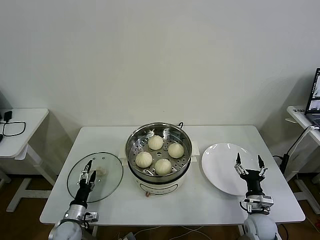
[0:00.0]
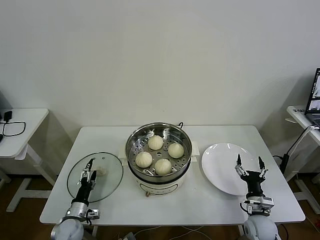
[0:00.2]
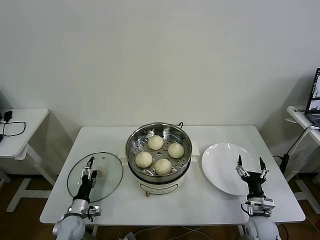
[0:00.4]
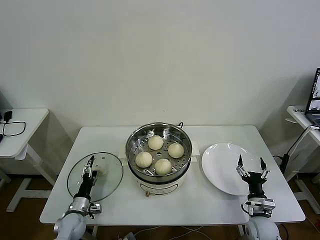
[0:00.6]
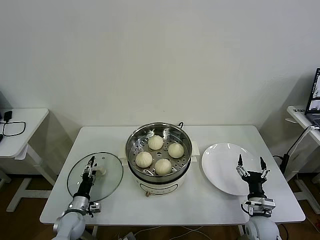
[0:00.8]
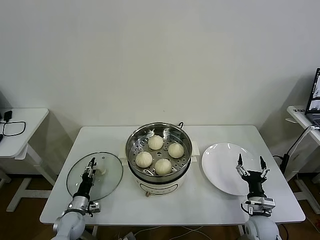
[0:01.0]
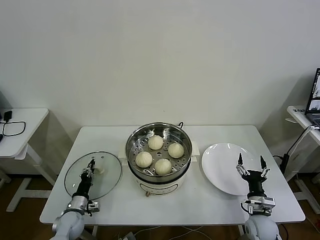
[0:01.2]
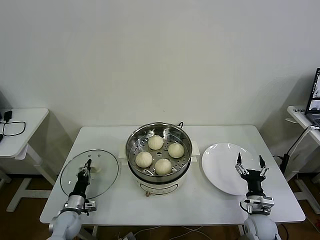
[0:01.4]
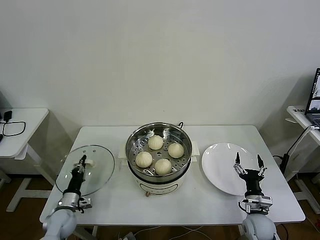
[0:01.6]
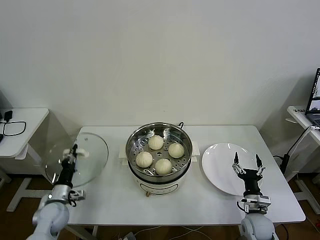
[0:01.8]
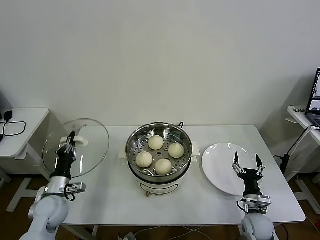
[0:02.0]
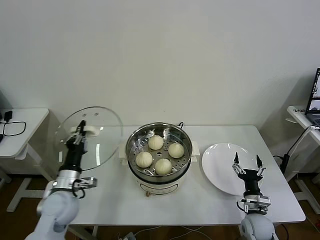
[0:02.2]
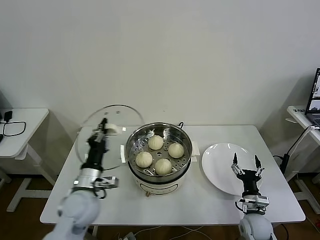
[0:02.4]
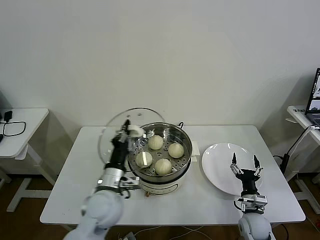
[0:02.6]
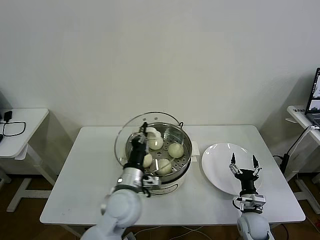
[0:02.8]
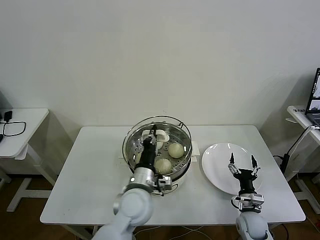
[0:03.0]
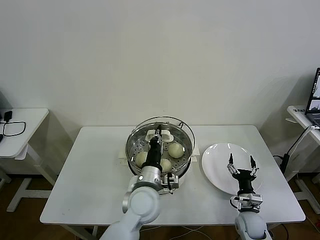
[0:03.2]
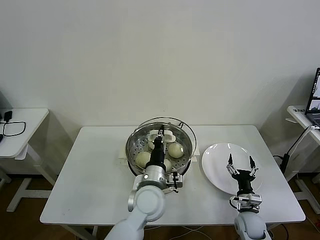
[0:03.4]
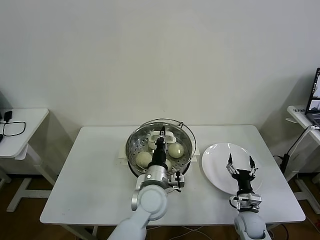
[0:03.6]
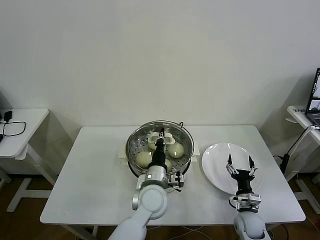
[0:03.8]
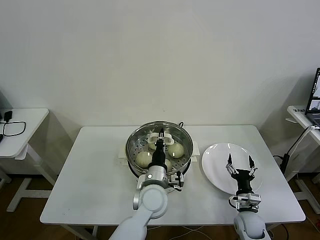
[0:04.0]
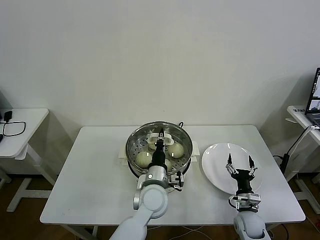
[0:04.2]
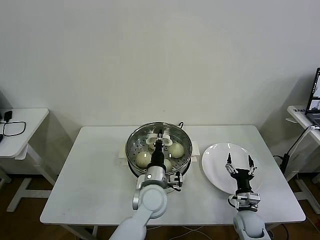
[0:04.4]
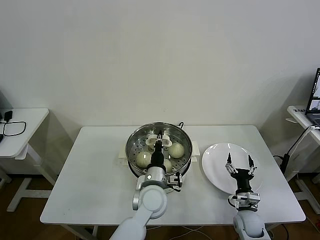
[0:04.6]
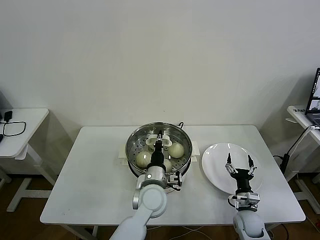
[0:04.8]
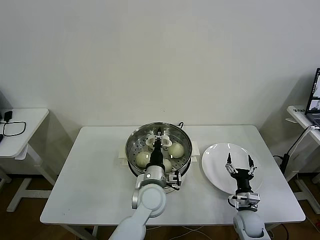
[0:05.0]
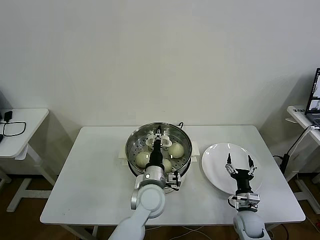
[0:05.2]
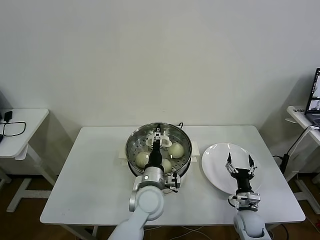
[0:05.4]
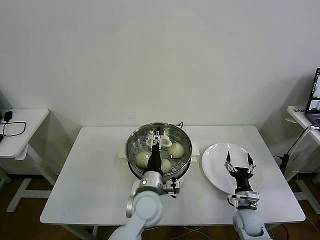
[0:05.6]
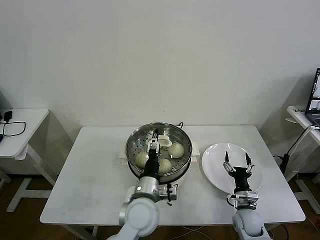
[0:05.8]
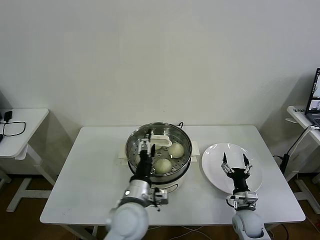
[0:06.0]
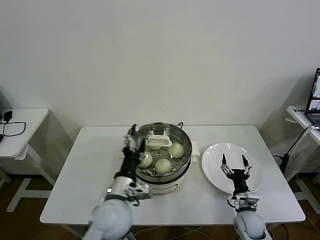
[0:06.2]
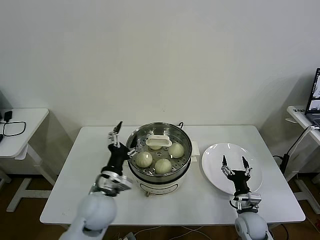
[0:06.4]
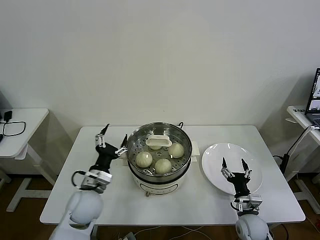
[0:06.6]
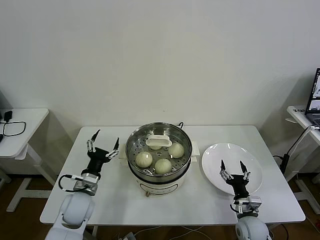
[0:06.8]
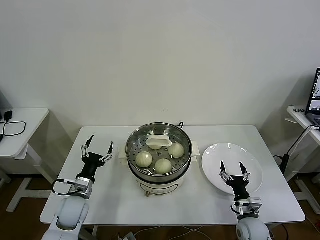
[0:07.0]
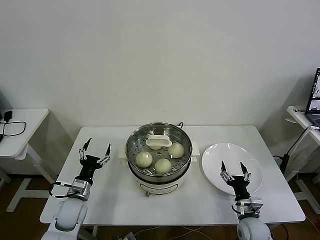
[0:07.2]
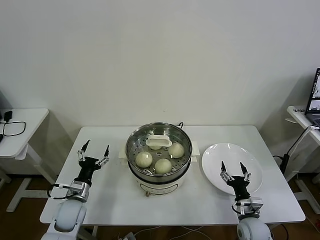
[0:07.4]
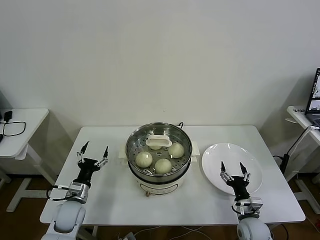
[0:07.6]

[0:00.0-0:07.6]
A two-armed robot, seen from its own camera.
Task of the whole recording: take steamed baozi put them in steamer then cover it.
Step, 1.6 to 5.8 s: Place the pot lid on the steamer with left gripper.
0.0 to 1.6 s: The left gripper closes.
1.6 to 3.0 s: The left gripper goes about 35 cm to the right and upward.
3.0 to 4.6 s: The left gripper travels to the right by some 5 cm.
4.6 to 6.0 s: The left gripper is displaced backward by about 5 cm, and opens its fingers.
6.0 to 7.6 s: The left gripper shifts approximately 25 cm to the left and downward.

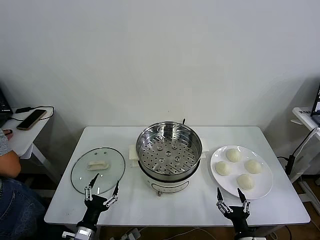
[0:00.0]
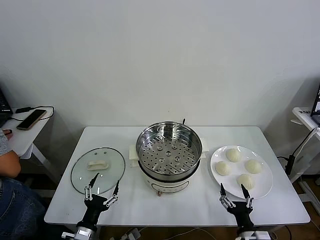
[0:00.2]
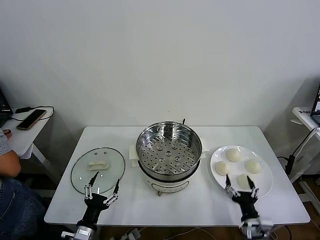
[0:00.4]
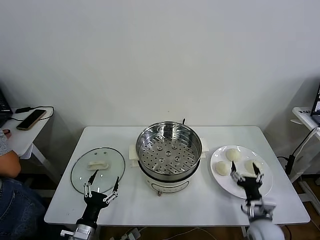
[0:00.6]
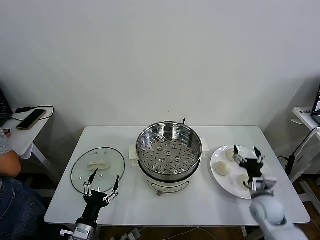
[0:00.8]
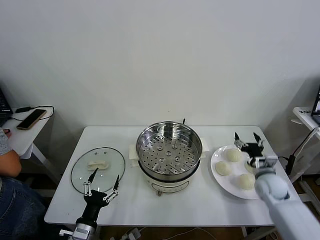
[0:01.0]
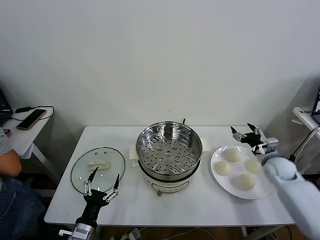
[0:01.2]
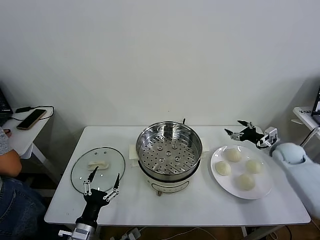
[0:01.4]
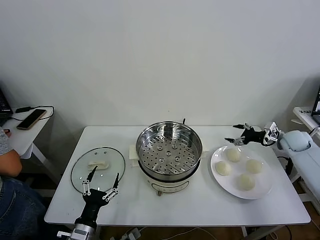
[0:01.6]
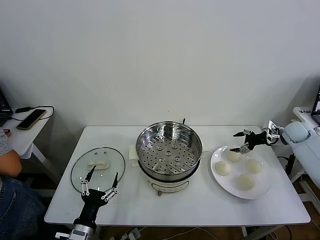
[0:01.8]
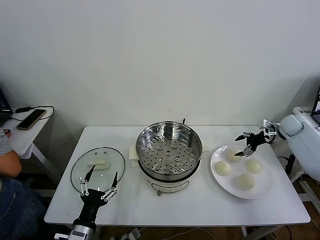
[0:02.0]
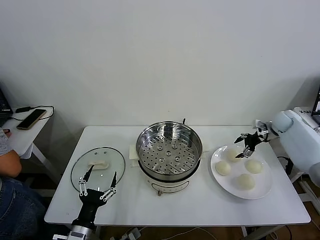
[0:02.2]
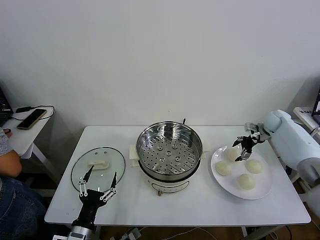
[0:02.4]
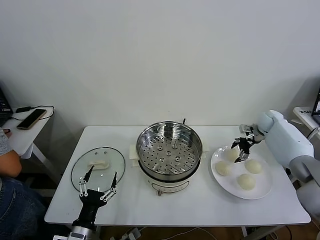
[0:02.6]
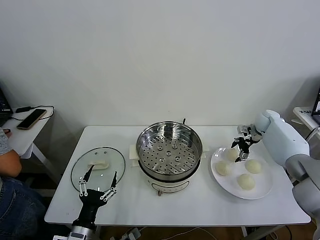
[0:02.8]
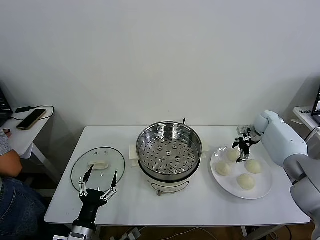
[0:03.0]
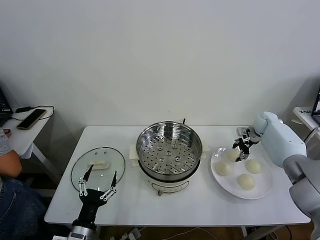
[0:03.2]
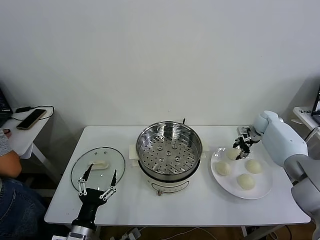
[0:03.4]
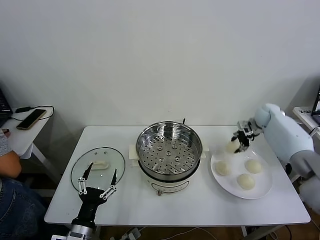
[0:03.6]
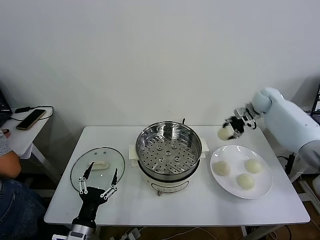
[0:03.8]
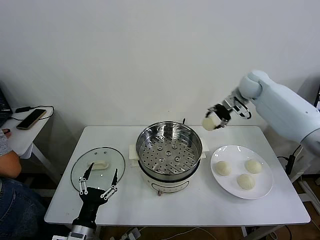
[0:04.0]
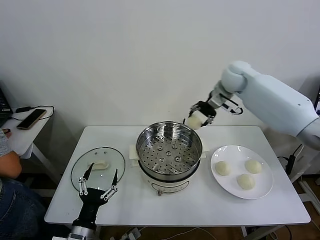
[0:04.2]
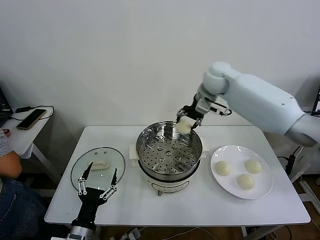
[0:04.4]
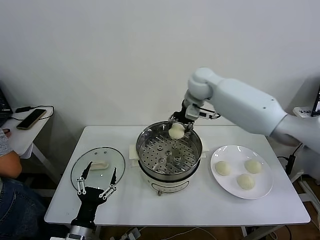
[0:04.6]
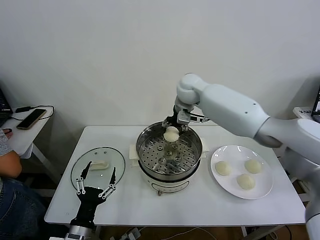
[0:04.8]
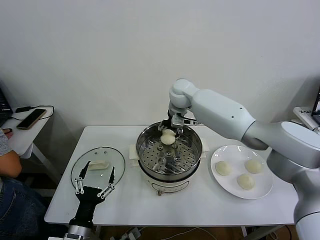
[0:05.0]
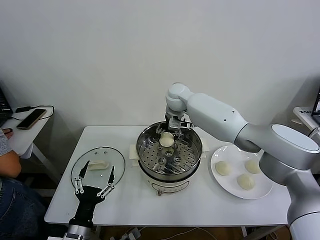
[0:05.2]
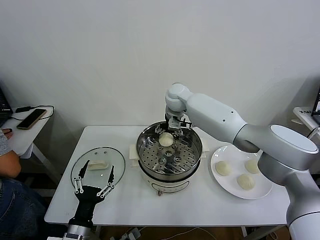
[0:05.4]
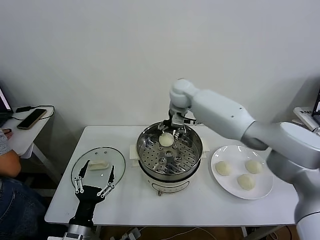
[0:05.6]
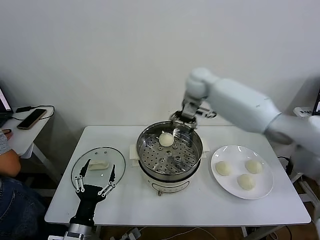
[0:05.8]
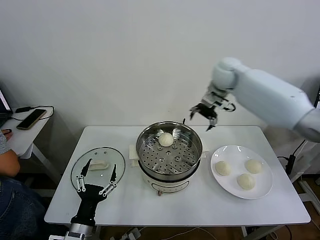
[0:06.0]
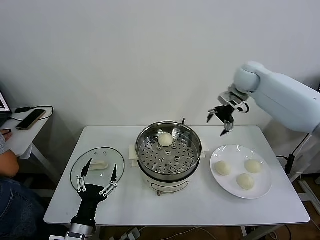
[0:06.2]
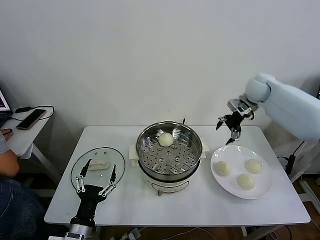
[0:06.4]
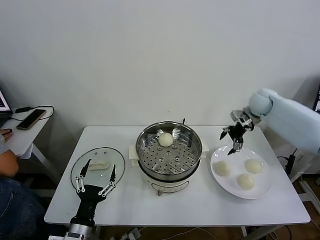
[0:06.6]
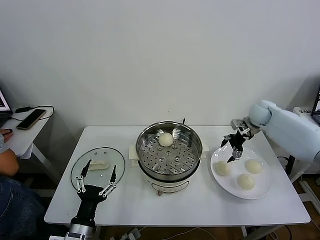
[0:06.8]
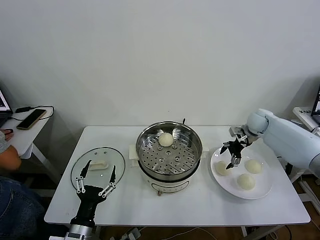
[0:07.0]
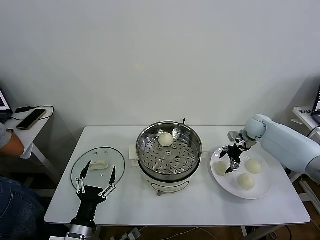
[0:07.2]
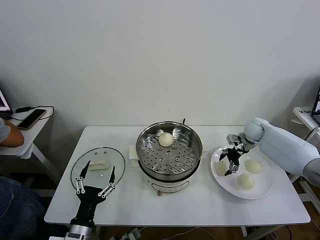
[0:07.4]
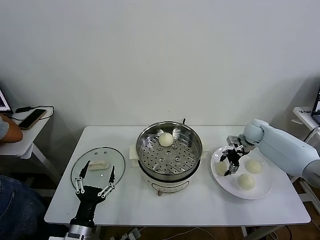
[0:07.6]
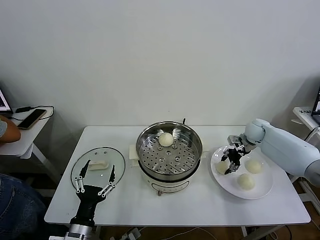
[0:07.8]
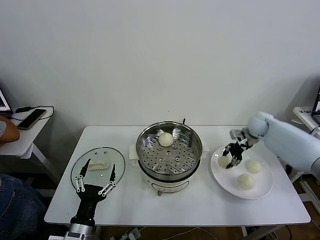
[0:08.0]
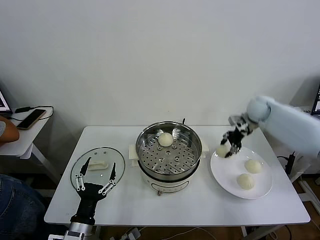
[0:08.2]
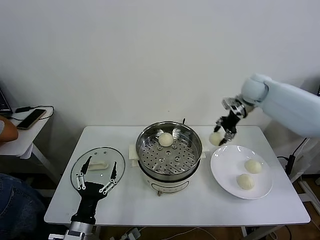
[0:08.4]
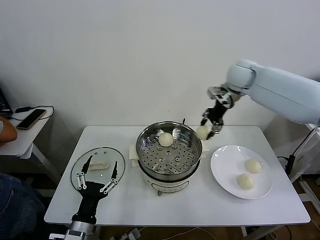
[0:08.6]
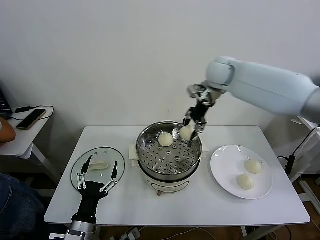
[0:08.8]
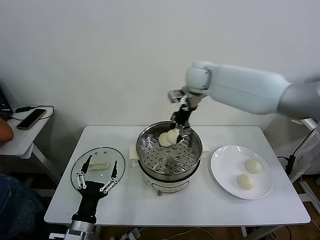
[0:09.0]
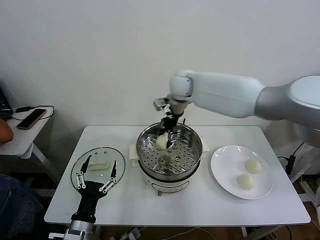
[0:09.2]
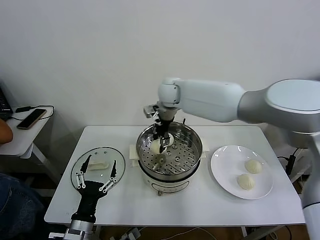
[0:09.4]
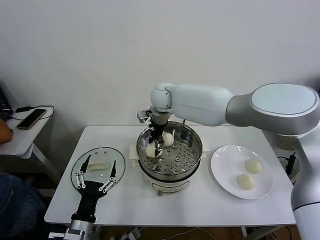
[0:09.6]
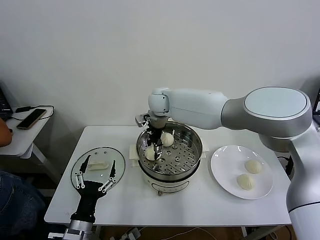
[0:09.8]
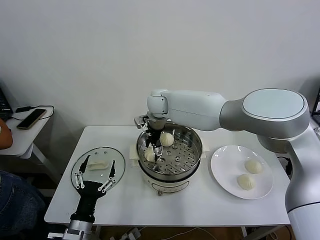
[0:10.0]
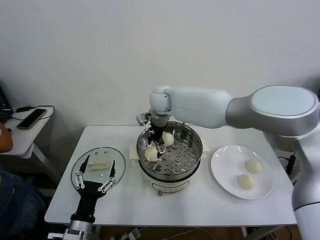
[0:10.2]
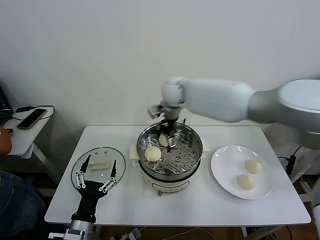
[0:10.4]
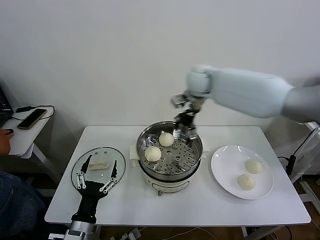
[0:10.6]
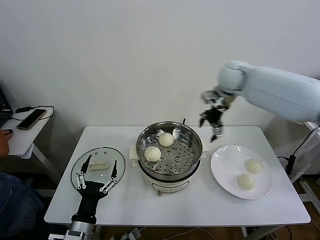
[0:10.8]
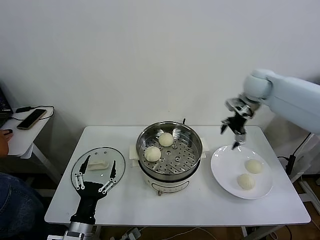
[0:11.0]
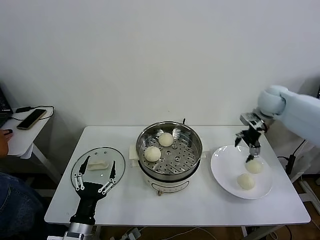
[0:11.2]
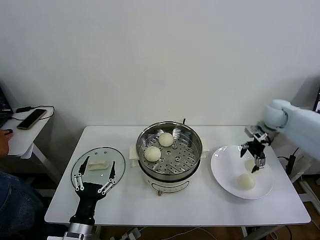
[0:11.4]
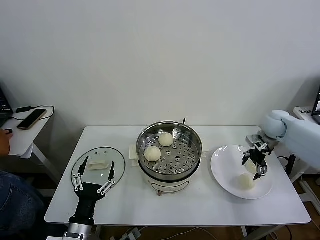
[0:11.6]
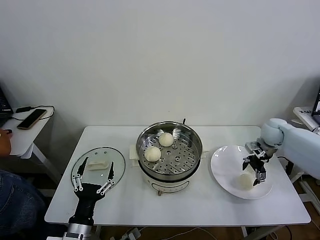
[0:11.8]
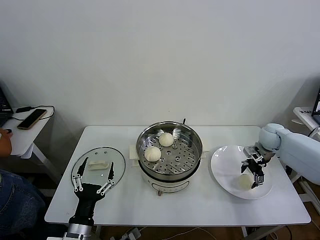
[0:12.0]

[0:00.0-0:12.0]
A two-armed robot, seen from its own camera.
Task of the whole recording: take steamed baozi put them in steamer then cover it.
Step, 0.0 to 3.4 s: Grasp the baozi in the plate with right gripper.
Step, 3.6 to 5.4 s: Place the baozi on the steamer with right gripper.
Step, 5.6 to 7.6 s: Grasp the baozi in the plate with right gripper.
Step, 8.0 to 10.0 s: Place the baozi on the steamer with right gripper.
1.6 to 3.0 s: The right gripper goes roughly 10 cm forward and to the left.
3.0 to 4.4 s: The right gripper shifts approximately 35 cm to the left and upward, and closes its fingers.
4.4 to 6.0 s: The right gripper moves to the right, roughly 10 cm, and opens its fingers.
6.0 to 7.6 s: The right gripper travels downward and to the right by some 25 cm, and closes up.
7.6 to 9.0 s: The right gripper goes about 35 cm to the left and upward.
9.0 to 10.4 s: The right gripper moves approximately 10 cm to the left and comes back, and opens up.
10.4 to 12.0 s: The right gripper goes some 40 cm to the right and downward.

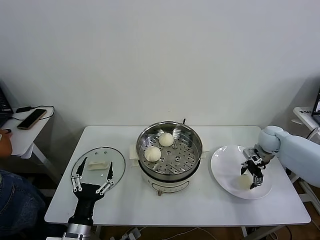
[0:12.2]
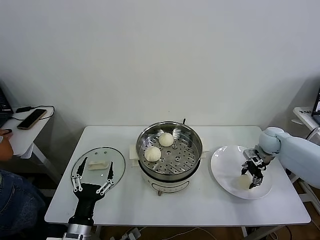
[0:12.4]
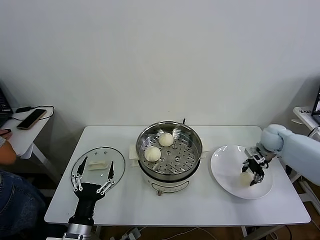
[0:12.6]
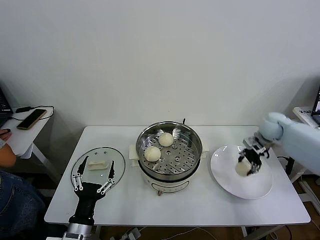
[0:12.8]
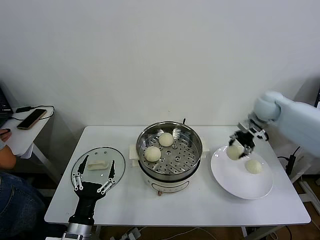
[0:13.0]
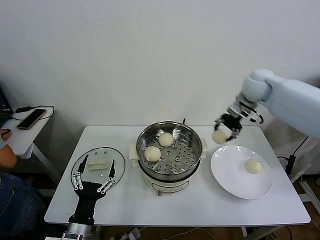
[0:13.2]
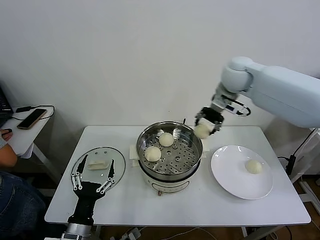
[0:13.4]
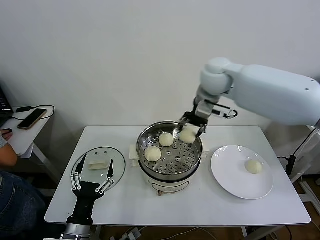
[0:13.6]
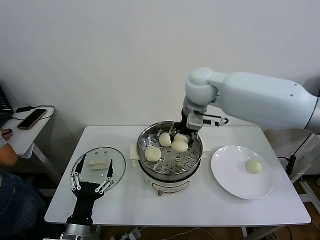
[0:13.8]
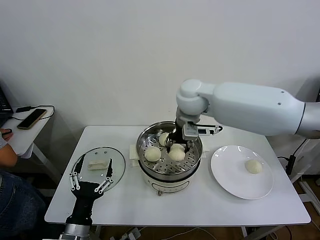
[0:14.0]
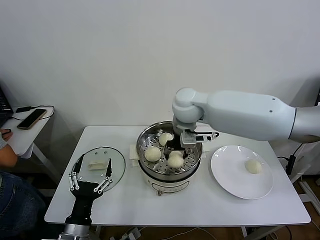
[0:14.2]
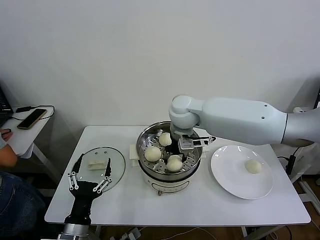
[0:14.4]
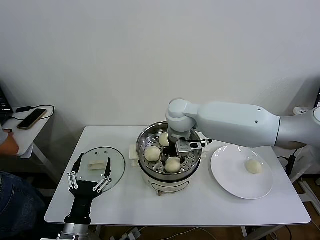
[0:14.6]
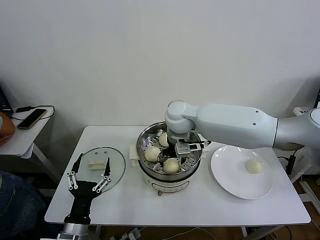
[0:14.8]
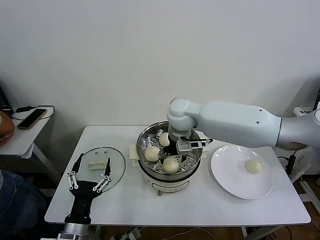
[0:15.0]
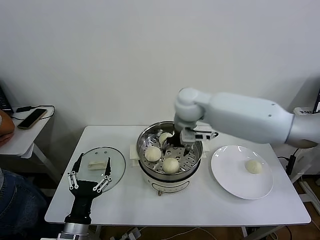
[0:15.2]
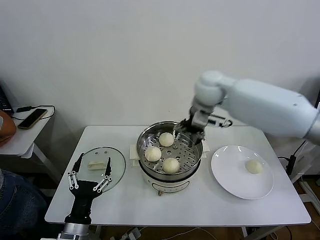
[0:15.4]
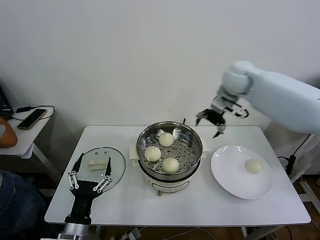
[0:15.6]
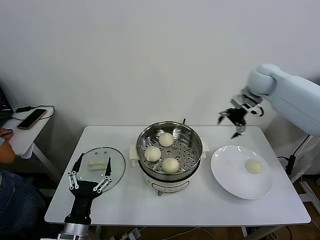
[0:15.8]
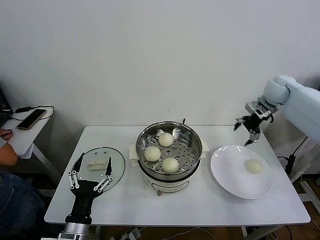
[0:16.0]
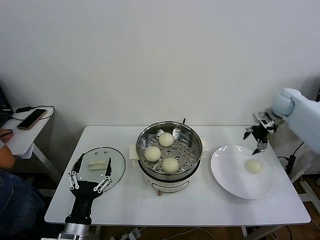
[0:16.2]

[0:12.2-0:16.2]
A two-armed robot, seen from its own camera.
Task of the whole recording: take steamed baozi put them in steamer then cover it.
Step, 12.6 to 14.8 s: Place the baozi on the steamer with right gripper.
12.2 to 13.6 s: The right gripper heads to the left and upward, covering approximately 40 cm, and closes up.
13.6 to 14.8 s: The right gripper heads downward and to the left, covering approximately 15 cm, and opens up.
14.8 to 16.2 s: The right gripper heads to the right, covering some 40 cm.
